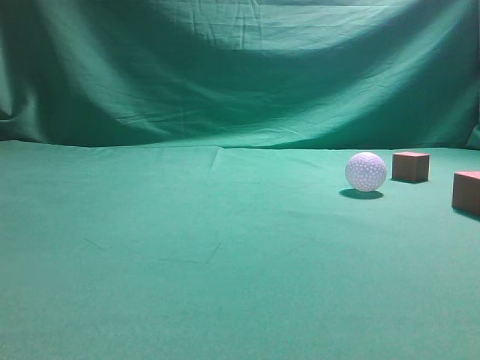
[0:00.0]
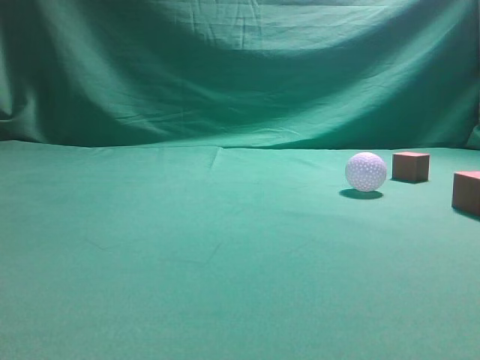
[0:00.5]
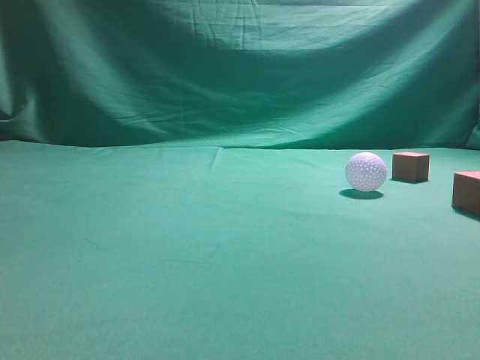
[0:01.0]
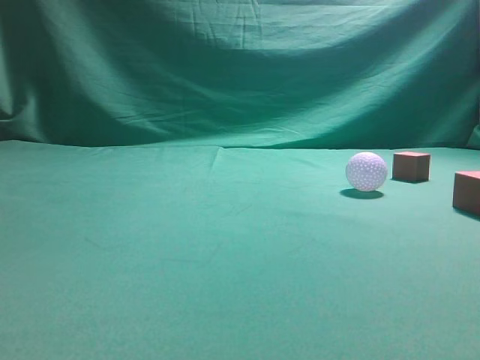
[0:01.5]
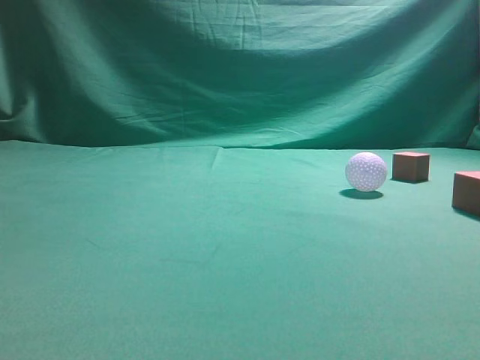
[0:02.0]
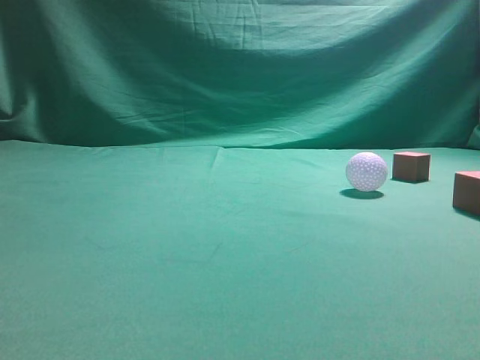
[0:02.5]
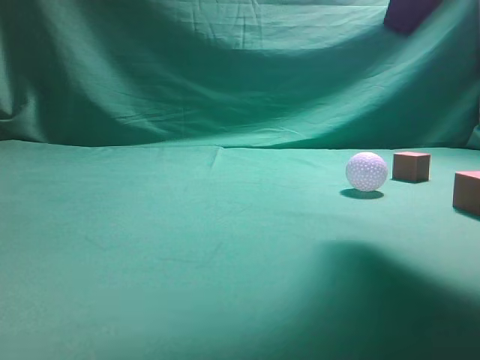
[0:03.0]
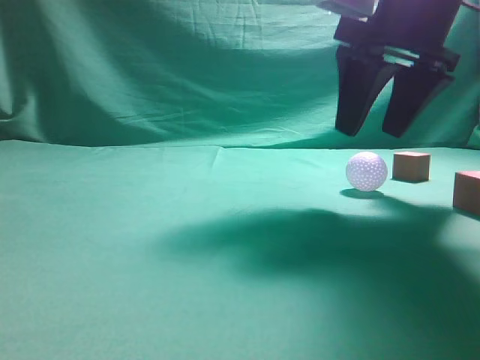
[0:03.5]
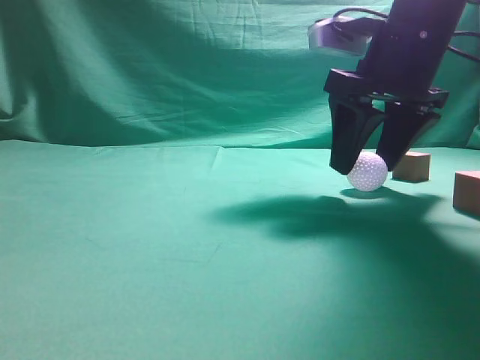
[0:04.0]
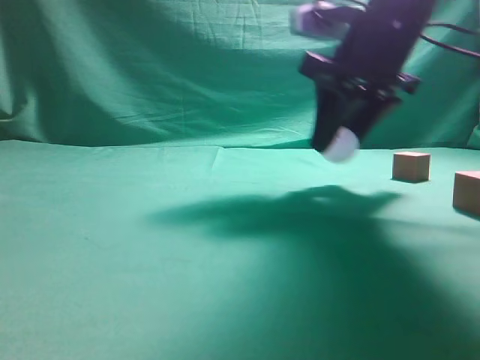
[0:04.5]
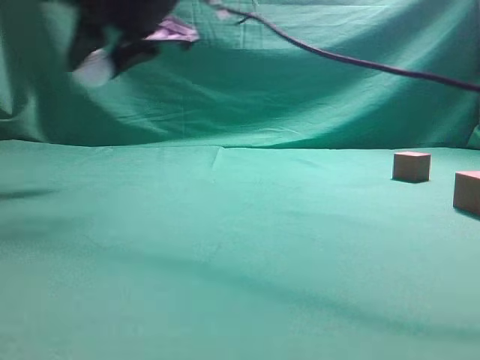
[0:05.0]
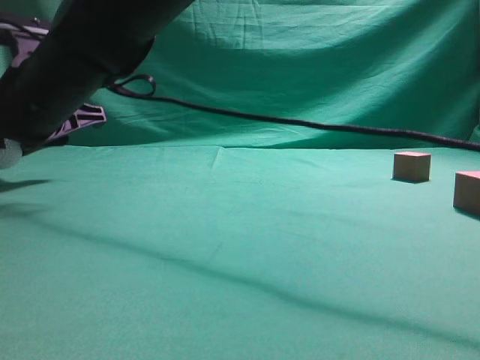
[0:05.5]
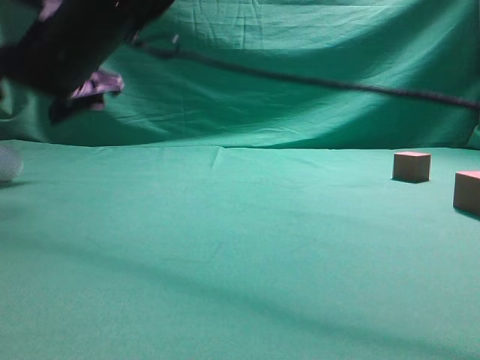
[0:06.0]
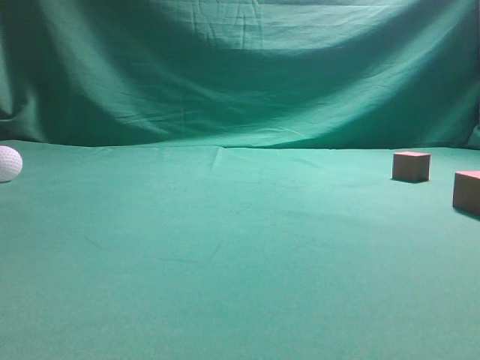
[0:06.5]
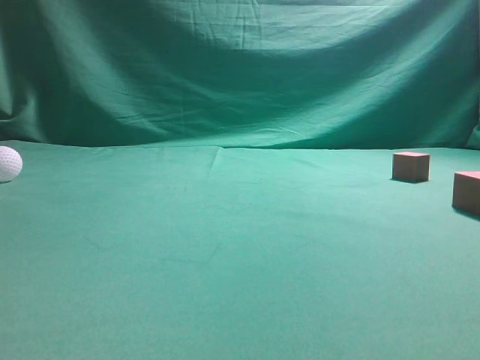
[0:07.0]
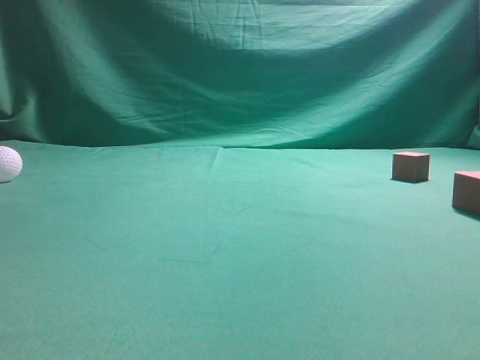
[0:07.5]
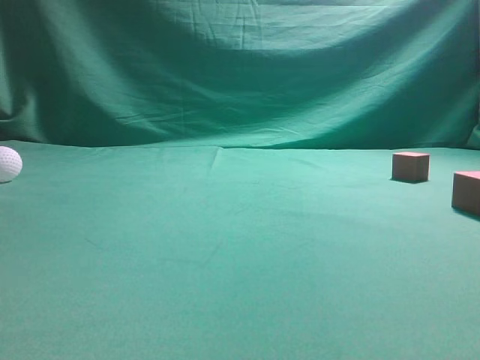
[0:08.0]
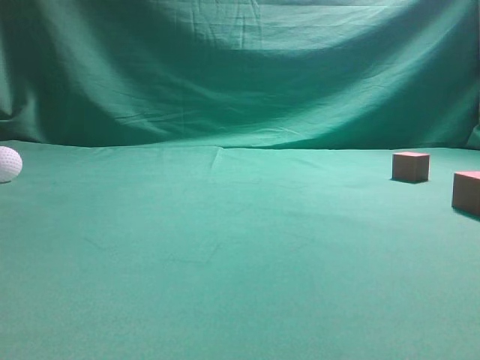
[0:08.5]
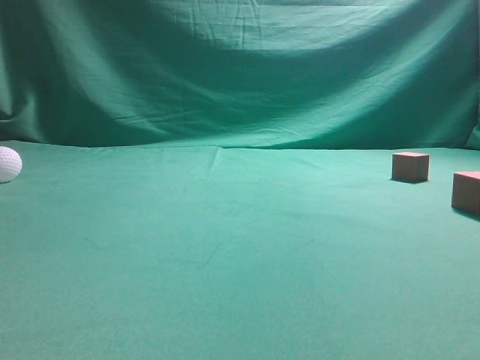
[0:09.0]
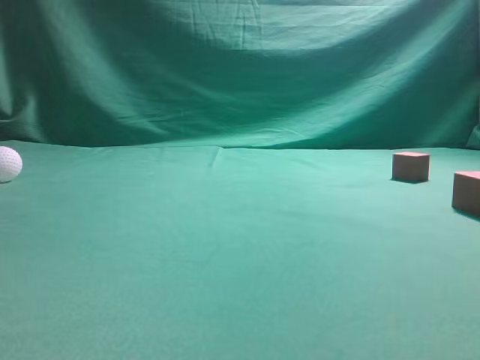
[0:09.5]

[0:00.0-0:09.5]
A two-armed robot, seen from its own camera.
Step, 0:00.0 to 0:04.5: Grasp the spherical object on the right side.
0:02.0 to 0:04.0: The right gripper heads forward, to the left and downward, covering some 30 cm, and opens.
0:04.0 to 0:05.5: The right gripper is displaced to the left by some 35 cm, and closes its fingers.
0:05.5 to 0:07.5: The right gripper goes some 50 cm to the right, upward and backward, and closes up.
